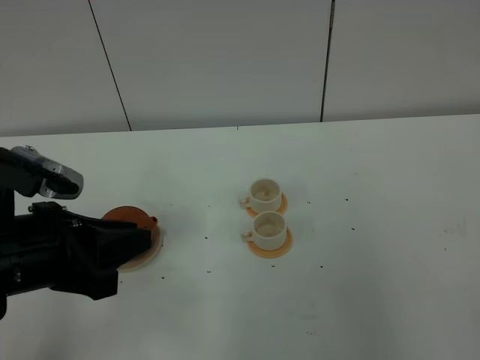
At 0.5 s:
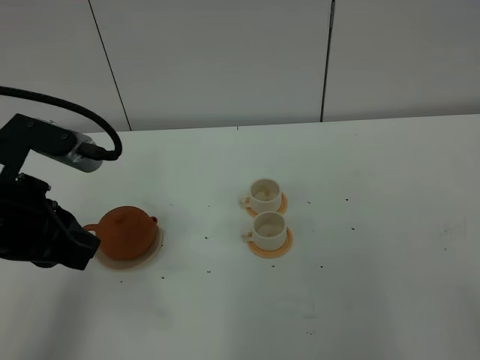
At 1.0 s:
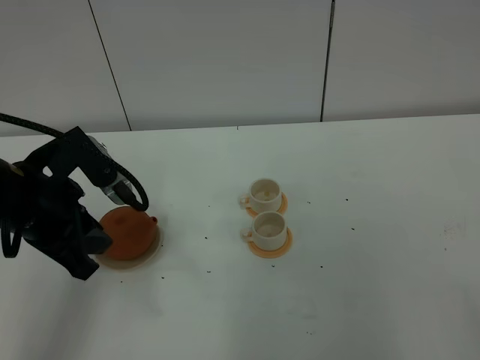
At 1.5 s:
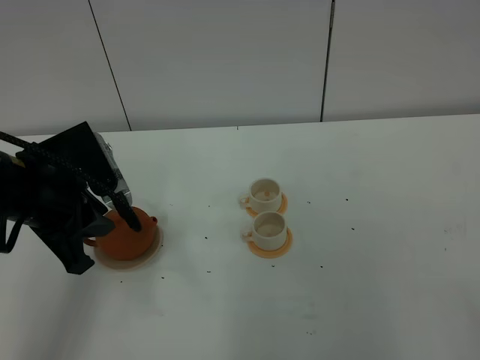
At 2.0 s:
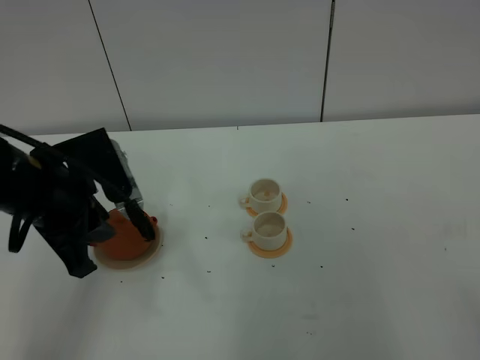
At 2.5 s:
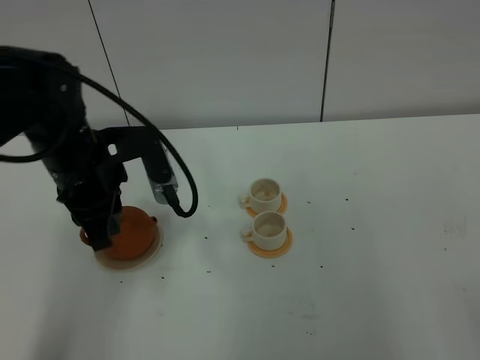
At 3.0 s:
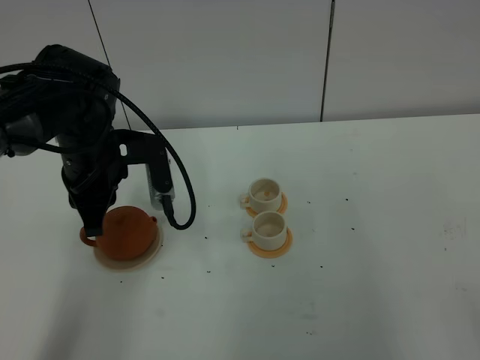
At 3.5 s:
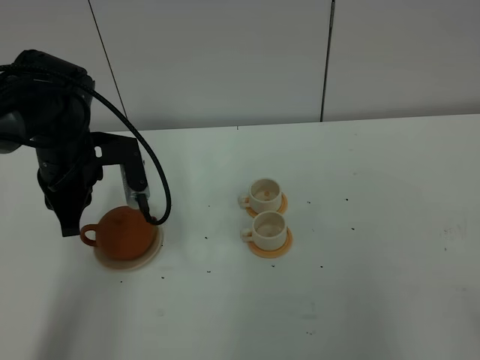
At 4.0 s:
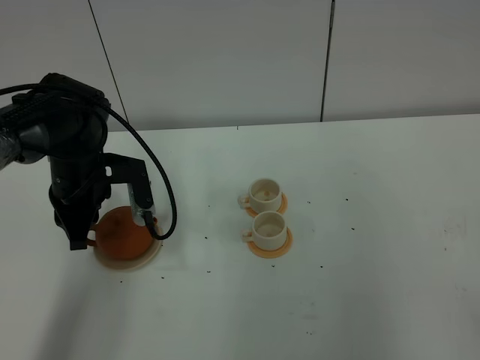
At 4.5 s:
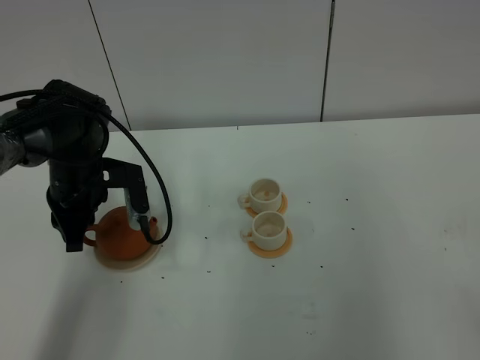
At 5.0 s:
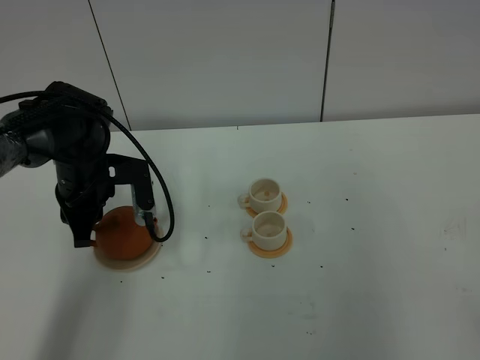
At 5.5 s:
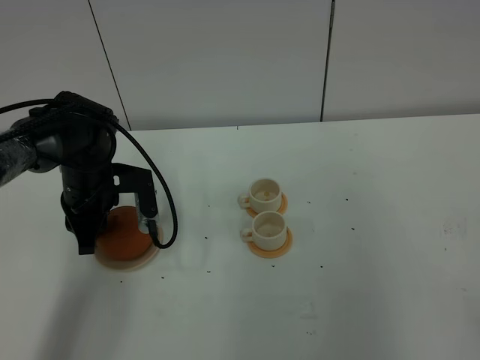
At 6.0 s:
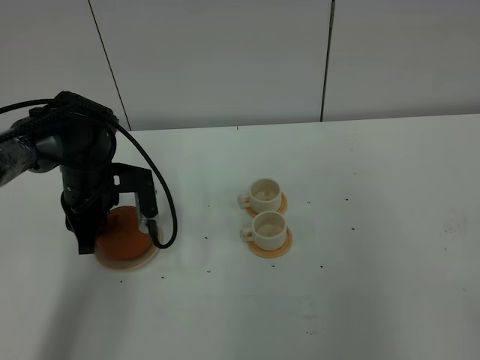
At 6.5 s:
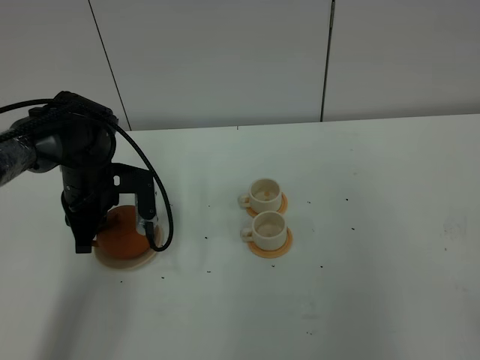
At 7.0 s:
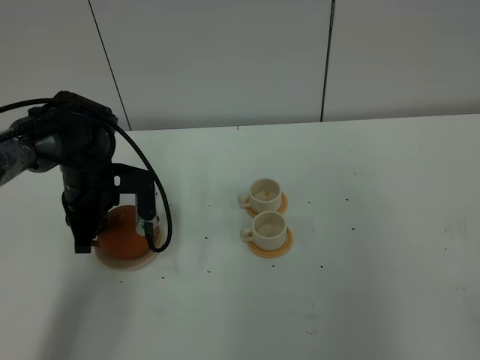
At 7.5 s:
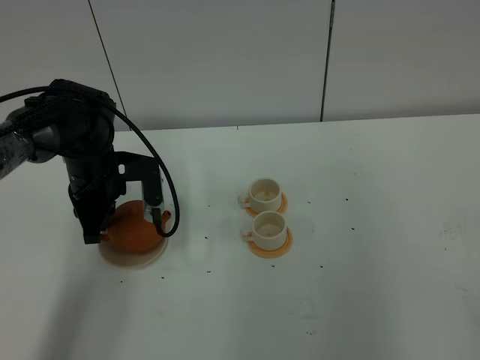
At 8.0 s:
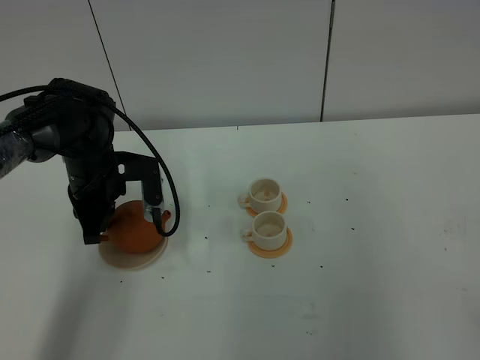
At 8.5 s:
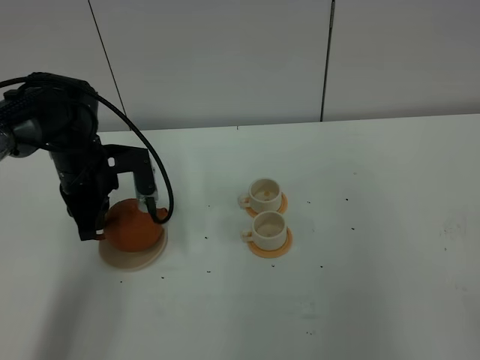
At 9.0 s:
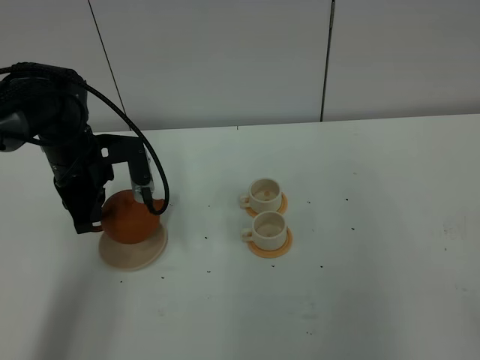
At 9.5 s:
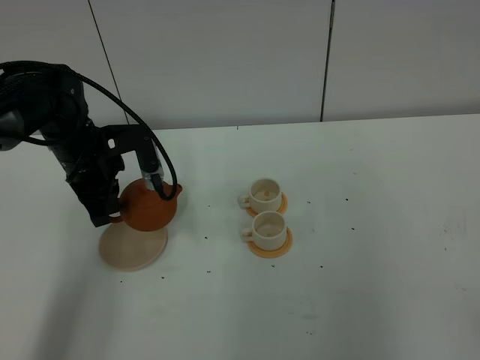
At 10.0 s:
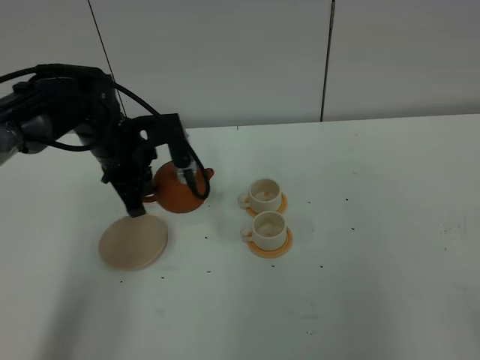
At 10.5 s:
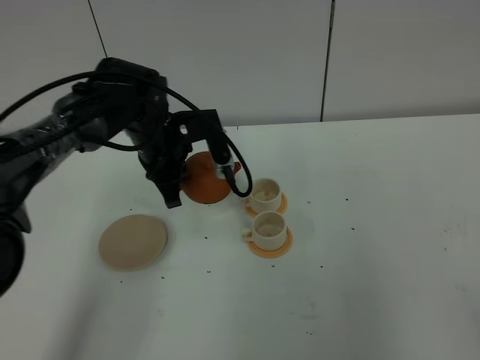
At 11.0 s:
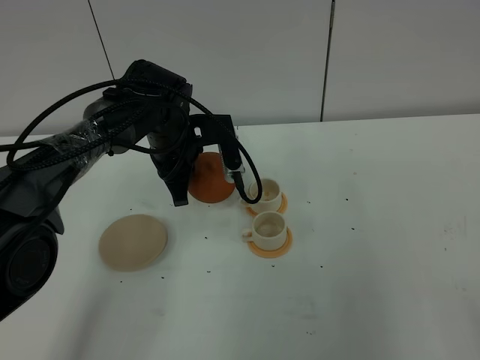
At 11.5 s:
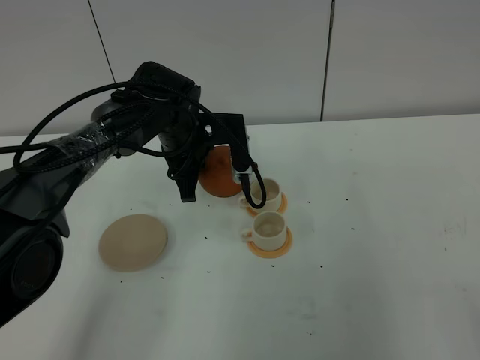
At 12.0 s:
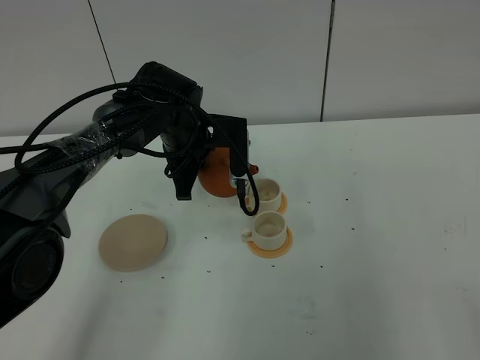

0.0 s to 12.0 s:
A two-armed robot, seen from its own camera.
Task of the whole recording: grasp the brown teapot and pour the tea into the two white teacups one by one, put the brown teapot back in its original place.
Step, 0.0 to 9.0 s: Pick up the teapot with the left gripper.
0.0 to 2.0 s: The left gripper moves forward, some 10 cm.
2.0 to 4.0 s: The left gripper travels forward and downward by some 15 cm.
4.0 to 8.0 s: The grippers move only a little.
8.0 to 10.0 s: The left gripper shifts by about 5 cm.
10.0 to 12.0 s: The left gripper travels to the right by about 10 cm.

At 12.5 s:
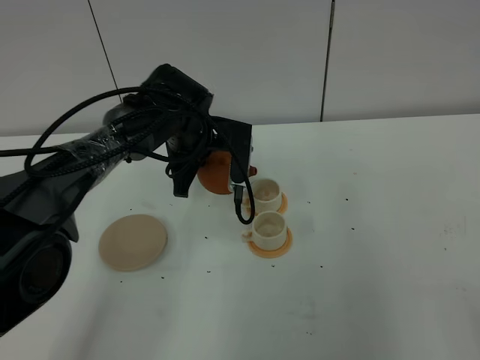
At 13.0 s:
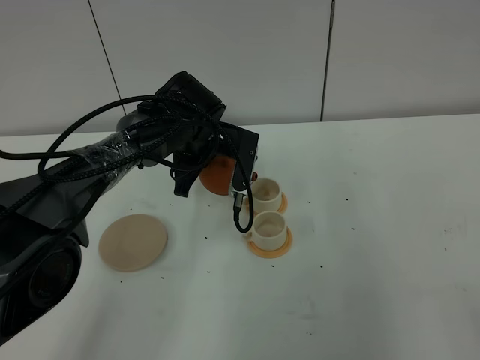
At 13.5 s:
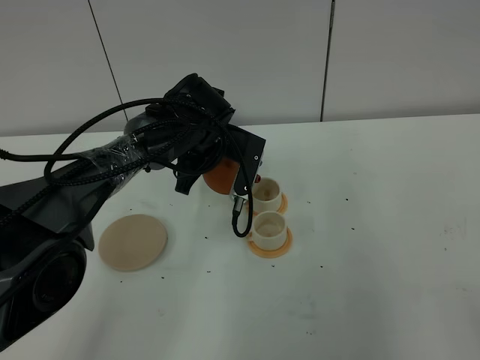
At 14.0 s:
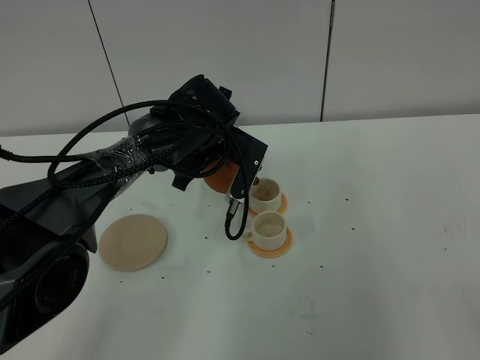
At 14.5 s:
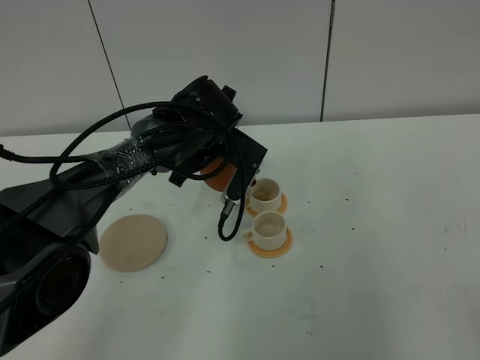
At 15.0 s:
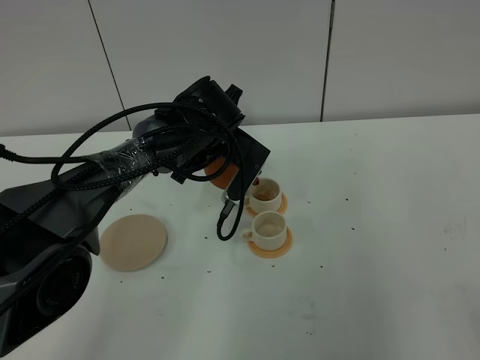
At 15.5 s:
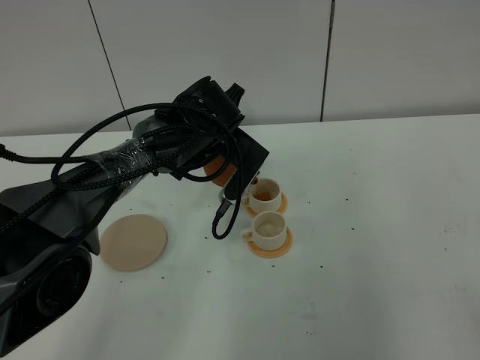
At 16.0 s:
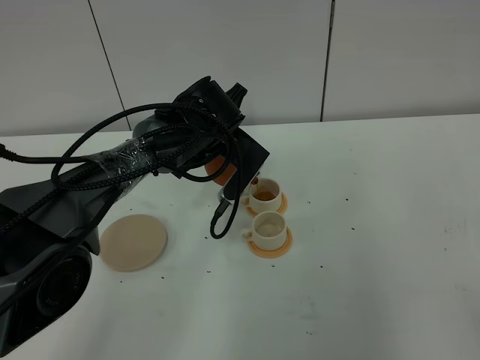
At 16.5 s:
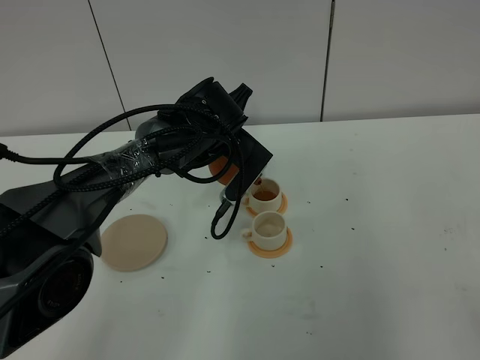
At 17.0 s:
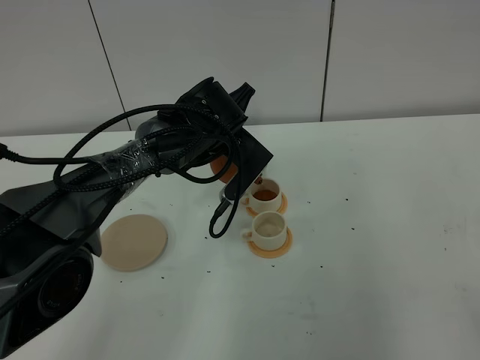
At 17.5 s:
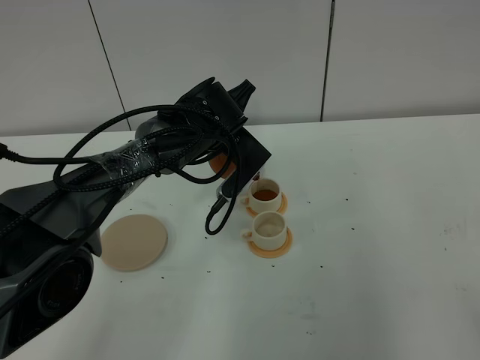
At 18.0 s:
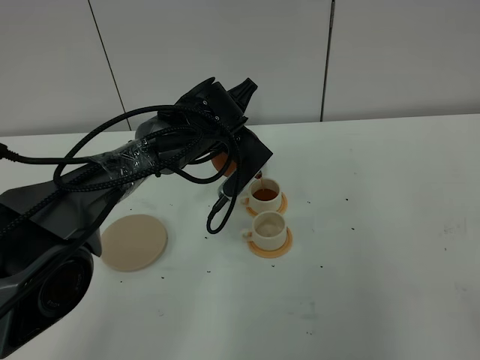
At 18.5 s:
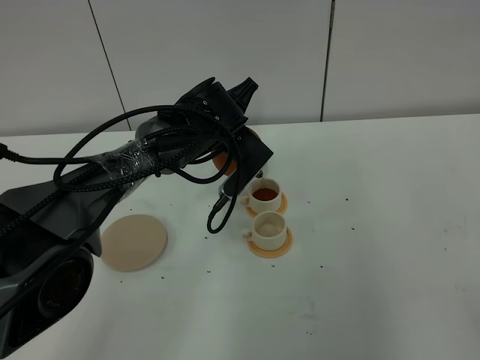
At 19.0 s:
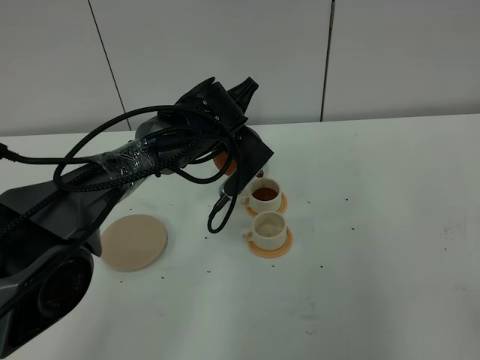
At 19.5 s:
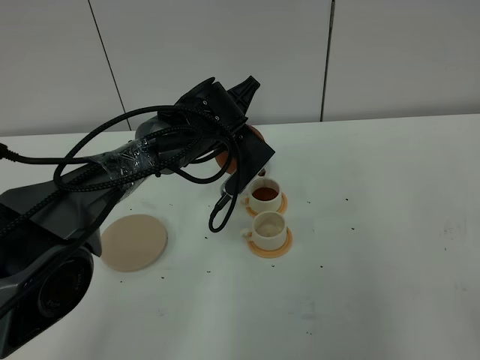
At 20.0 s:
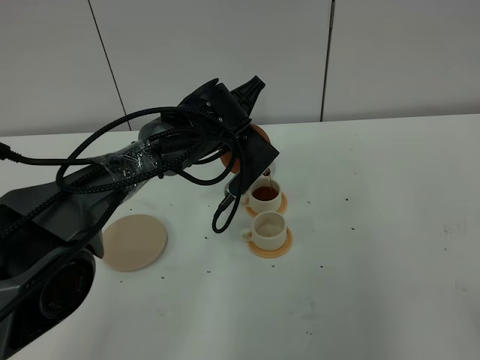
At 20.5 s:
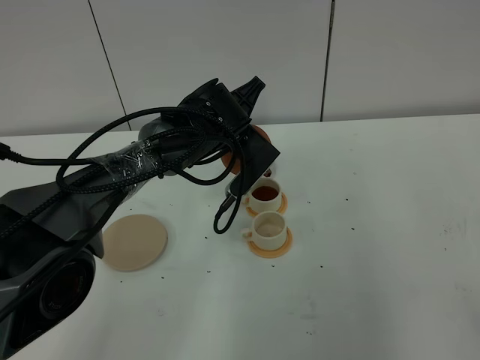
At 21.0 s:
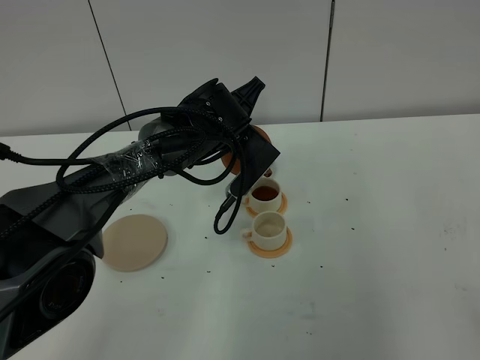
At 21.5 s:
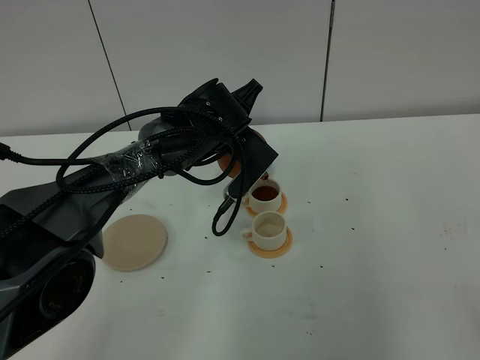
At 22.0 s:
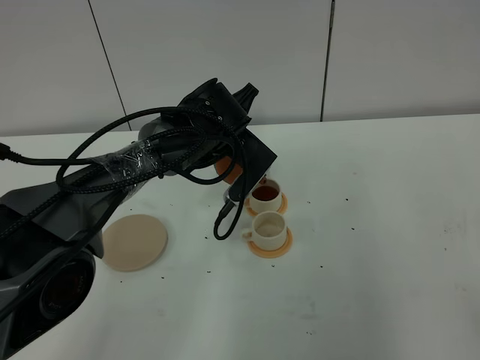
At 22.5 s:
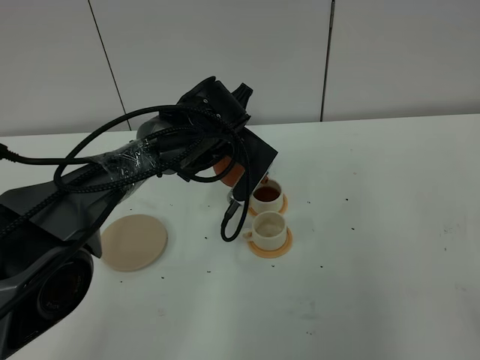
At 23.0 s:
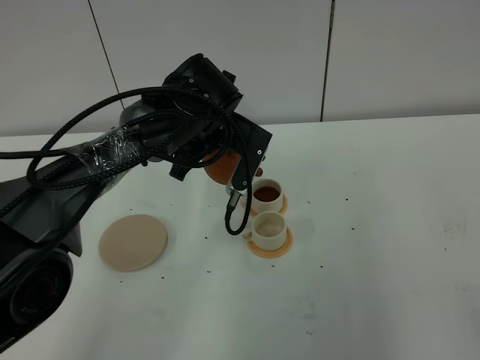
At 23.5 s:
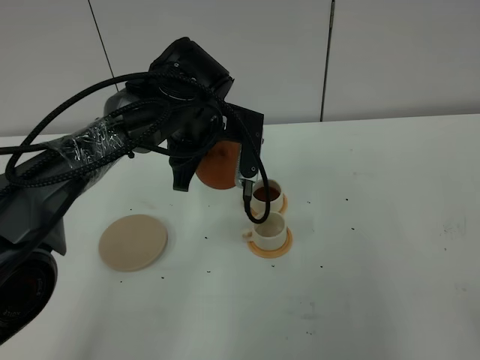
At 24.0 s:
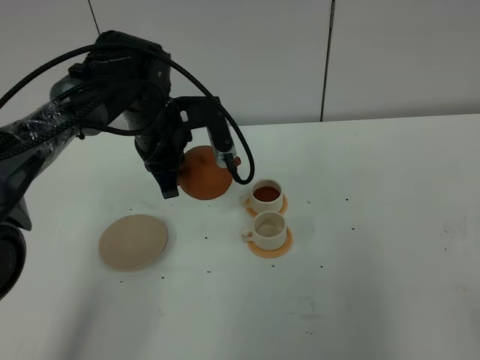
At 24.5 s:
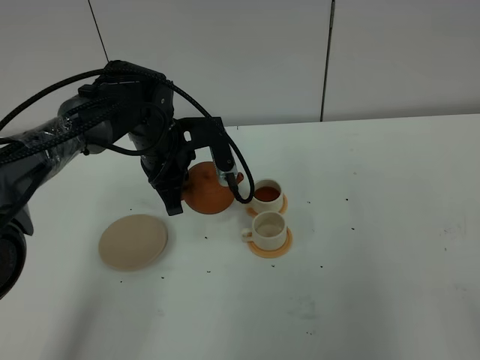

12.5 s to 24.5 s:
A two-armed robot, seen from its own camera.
Task of the whole recording: grasp the brown teapot and pour the tea into the two white teacups one by one, put the brown teapot back in its original place.
14.5 to 18.5 s: The grippers make only small movements.
18.5 to 20.5 s: The two grippers keep their place.
20.5 to 22.5 s: The grippers stay close to where they were, moving slightly.
22.5 to 24.5 s: The left gripper goes about 10 cm to the left.

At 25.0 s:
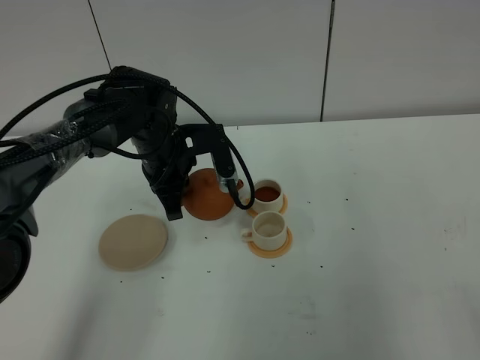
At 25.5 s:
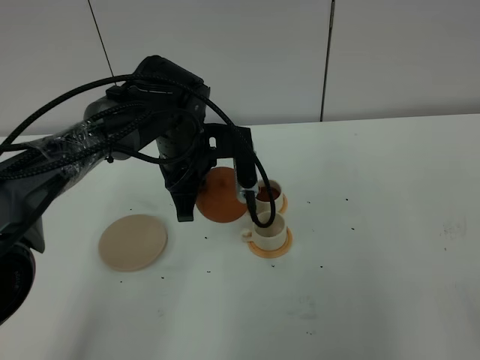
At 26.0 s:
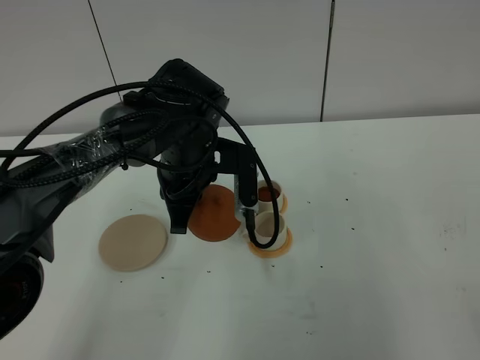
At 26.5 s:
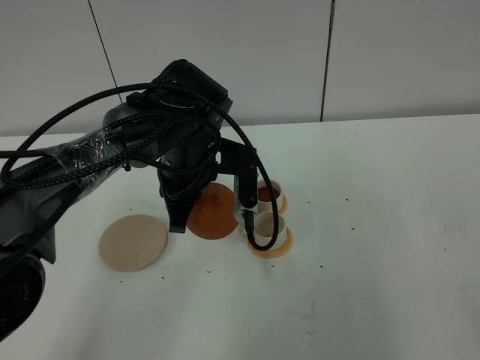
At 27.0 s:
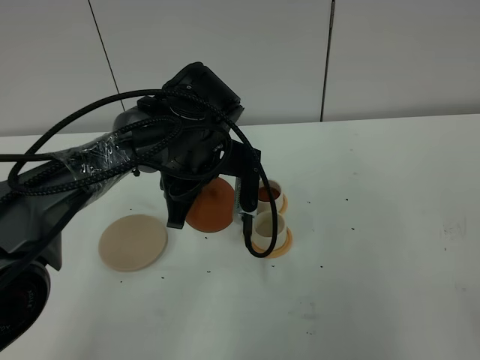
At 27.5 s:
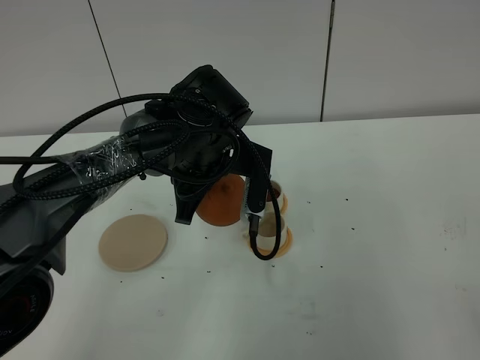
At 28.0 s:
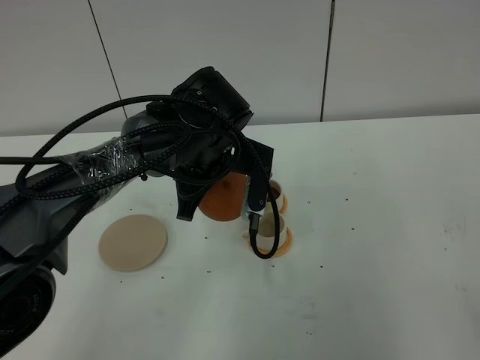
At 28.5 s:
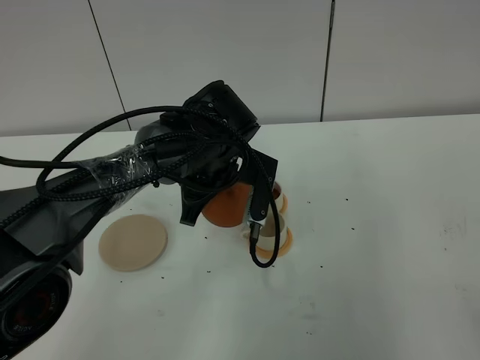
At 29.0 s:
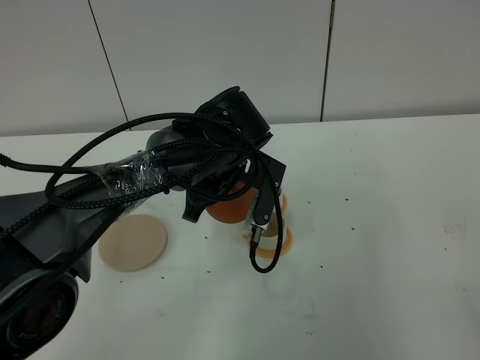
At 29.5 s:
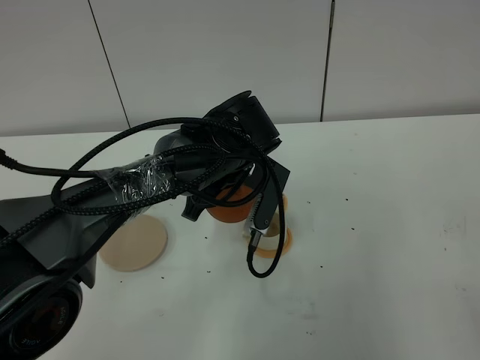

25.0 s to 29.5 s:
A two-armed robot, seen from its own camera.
Task of the whole recording: grasp the brown teapot and pour the tea into the two white teacups one by one, put the brown teapot back in its original place.
25.0 to 27.0 s: The left gripper goes approximately 5 cm to the right.
27.0 to 29.5 s: The grippers move only a little.
